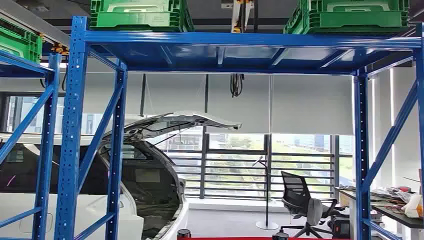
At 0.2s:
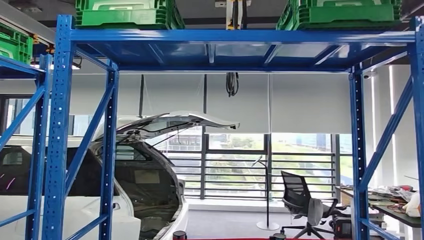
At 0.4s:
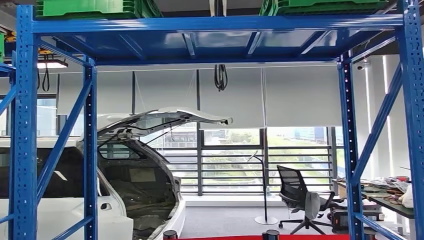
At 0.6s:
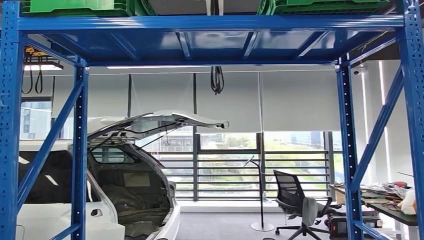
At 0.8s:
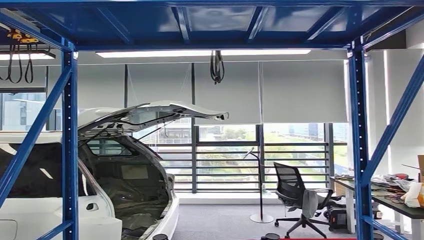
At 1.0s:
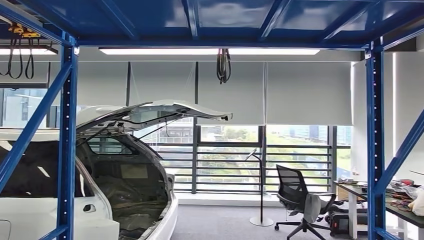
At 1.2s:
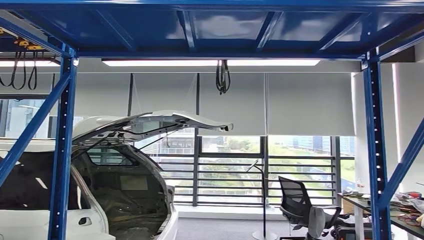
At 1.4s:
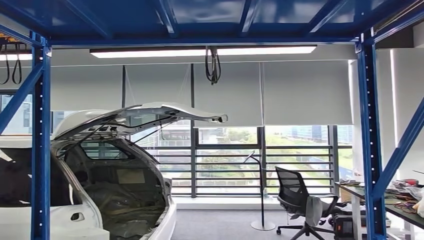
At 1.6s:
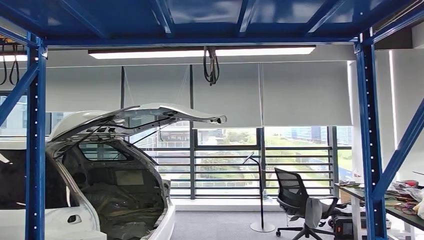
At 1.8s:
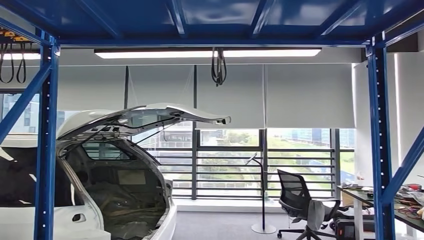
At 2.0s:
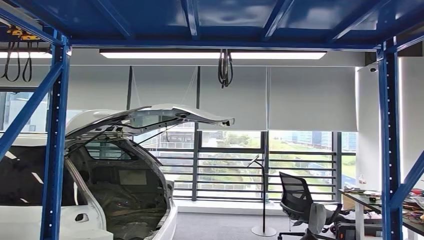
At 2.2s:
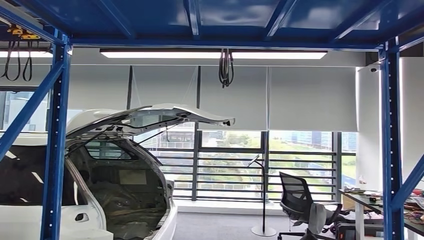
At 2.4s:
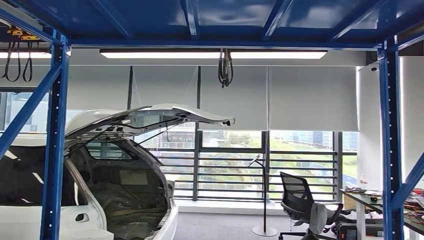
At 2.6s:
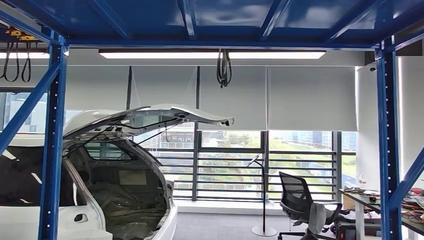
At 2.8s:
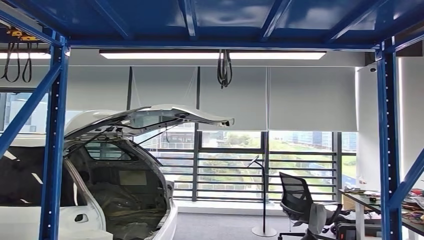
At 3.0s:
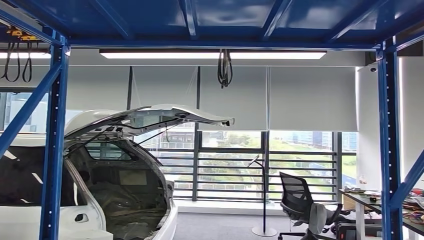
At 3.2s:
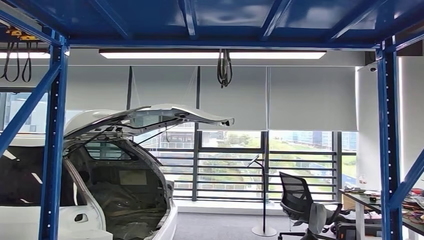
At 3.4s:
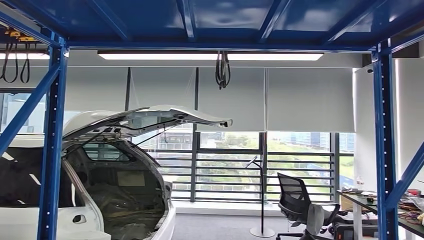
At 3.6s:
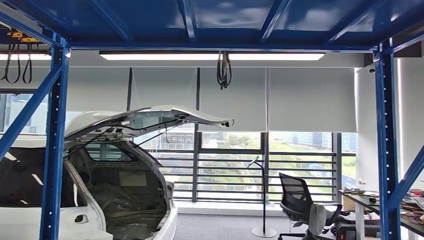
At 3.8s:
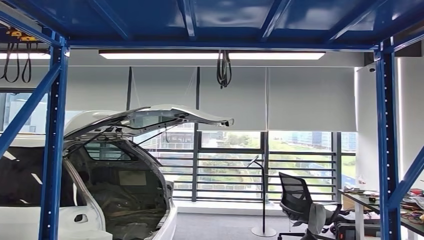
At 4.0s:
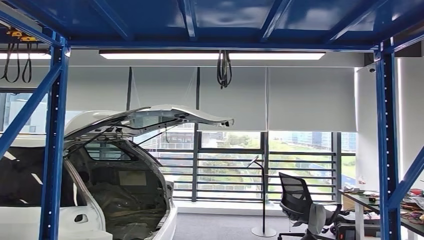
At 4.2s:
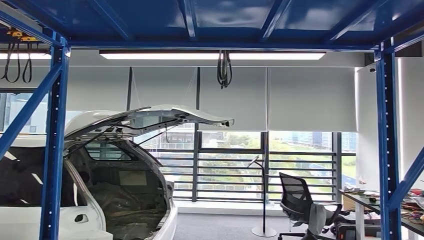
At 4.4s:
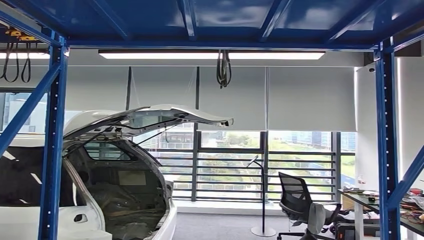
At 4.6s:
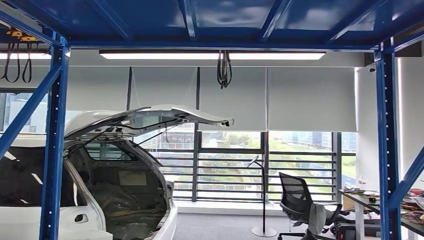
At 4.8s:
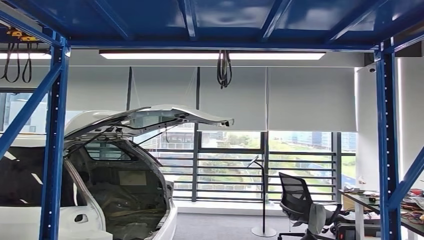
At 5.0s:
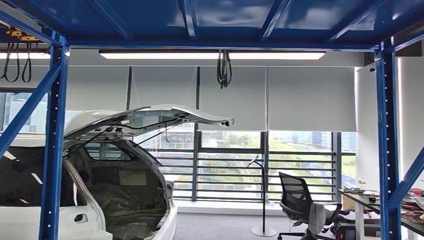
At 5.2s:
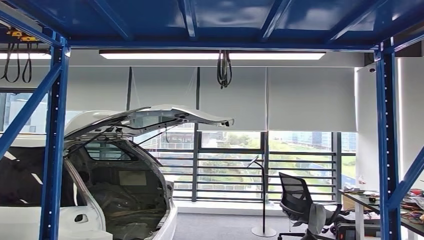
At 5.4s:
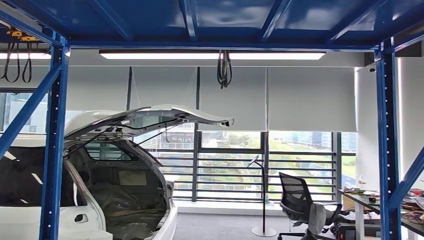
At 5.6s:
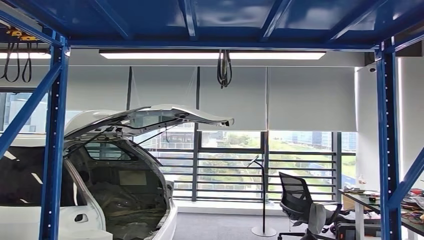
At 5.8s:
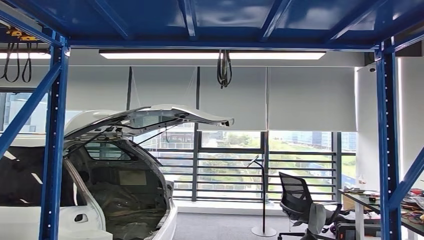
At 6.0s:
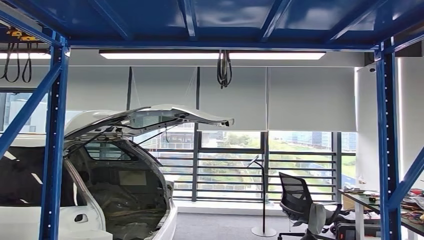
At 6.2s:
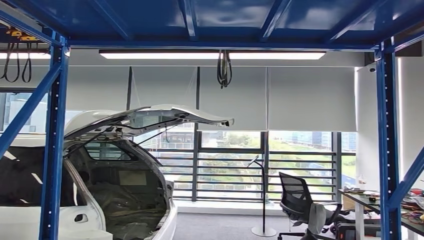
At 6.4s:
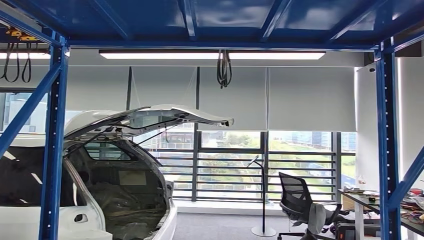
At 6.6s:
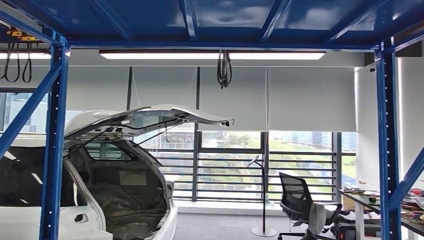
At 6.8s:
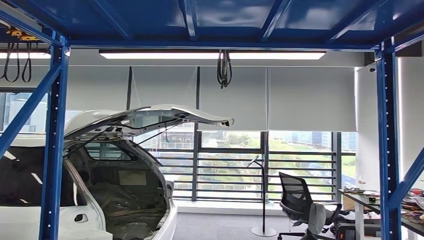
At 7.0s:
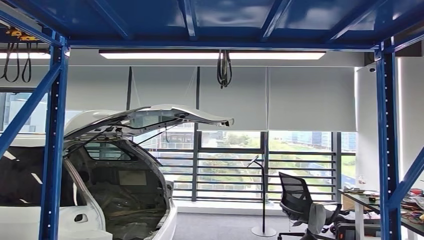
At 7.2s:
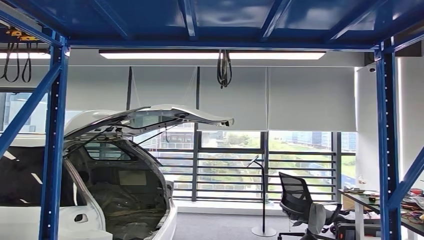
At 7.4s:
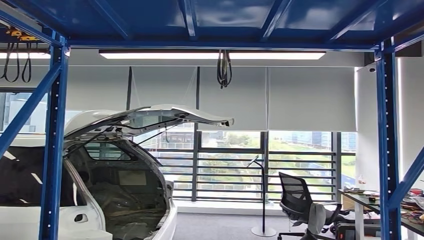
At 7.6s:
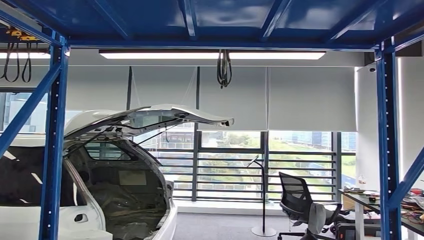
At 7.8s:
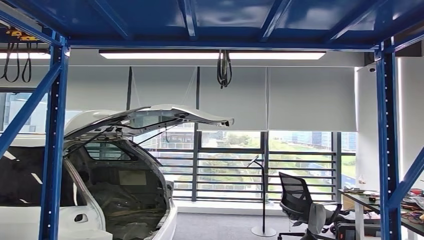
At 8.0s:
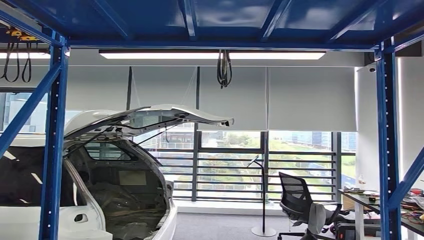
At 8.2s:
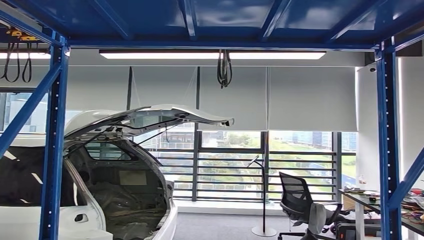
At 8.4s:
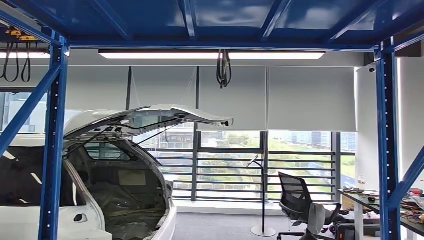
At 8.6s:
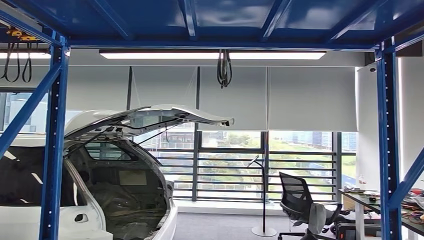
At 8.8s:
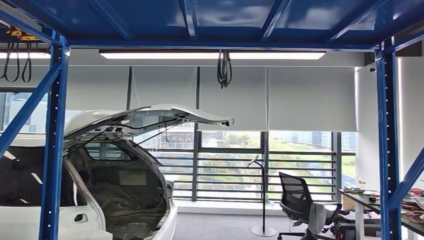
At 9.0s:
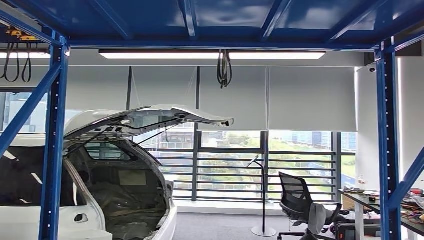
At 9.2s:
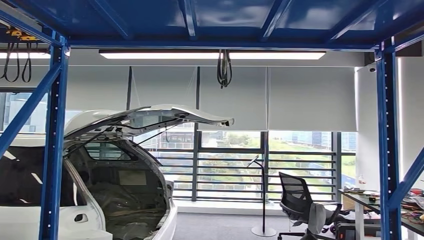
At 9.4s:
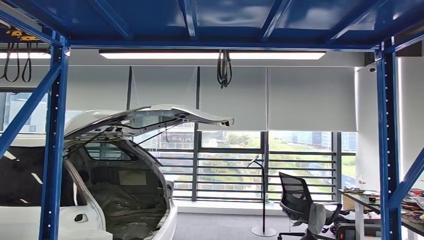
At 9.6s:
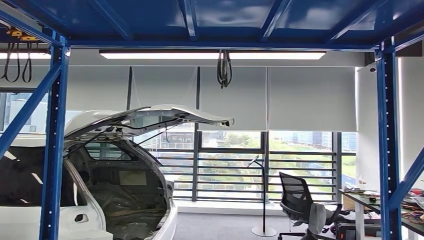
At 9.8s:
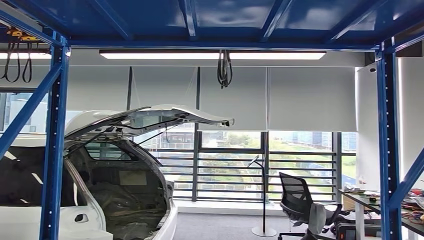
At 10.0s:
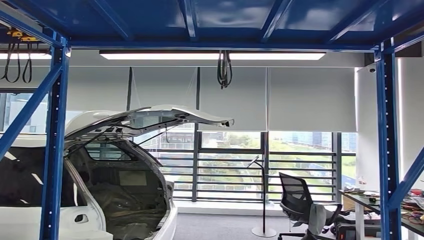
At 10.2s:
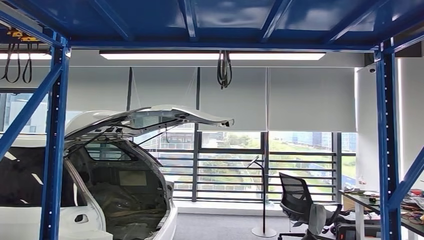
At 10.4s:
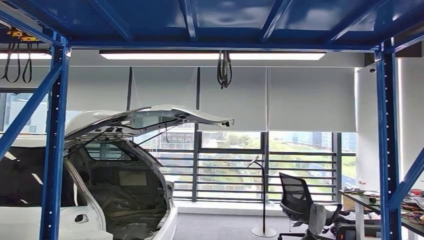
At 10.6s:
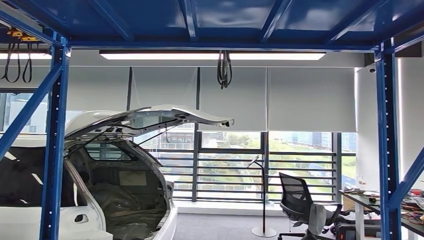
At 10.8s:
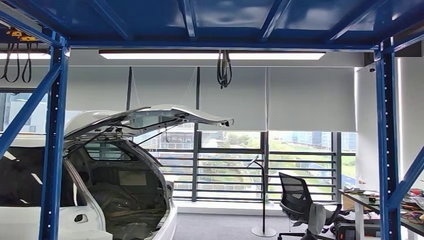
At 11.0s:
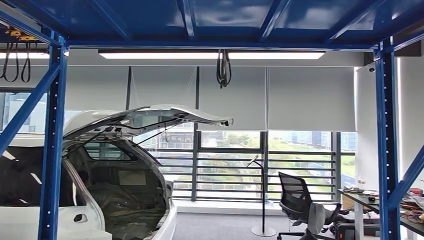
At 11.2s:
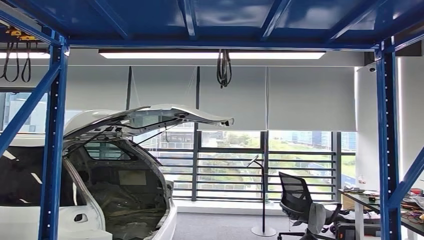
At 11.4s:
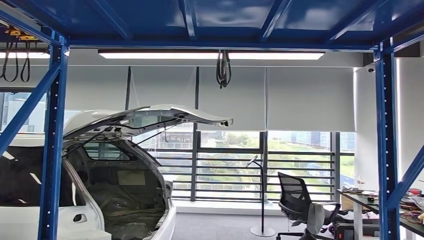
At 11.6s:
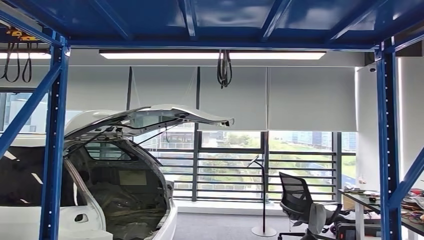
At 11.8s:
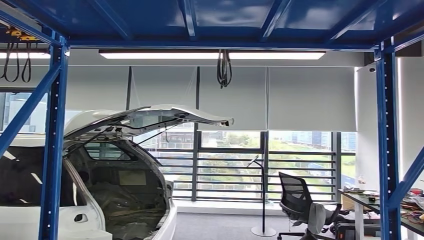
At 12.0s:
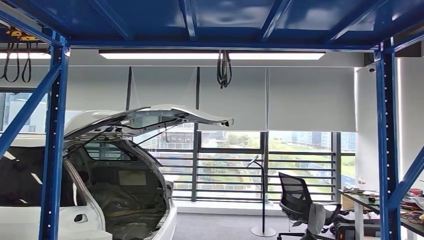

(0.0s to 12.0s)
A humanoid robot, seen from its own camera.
Step, 0.0s - 11.4s: Pick up the small component from the shelf.
3.0s - 4.4s: The right hand goes approximately 15 cm forward.
4.4s - 6.0s: The right hand moves to the left, about 5 cm.
9.0s - 10.4s: The right hand travels to the right by roughly 5 cm.
10.4s - 12.0s: The right hand shifts roughly 20 cm backward, to the left and upward.

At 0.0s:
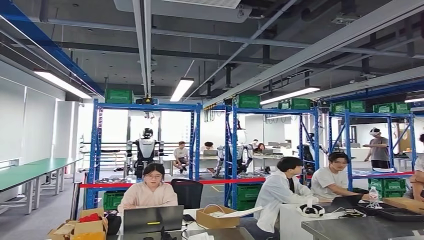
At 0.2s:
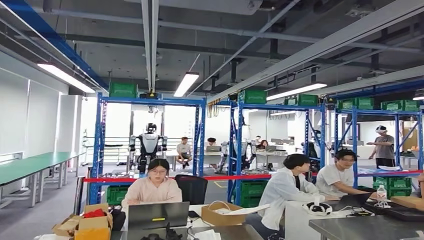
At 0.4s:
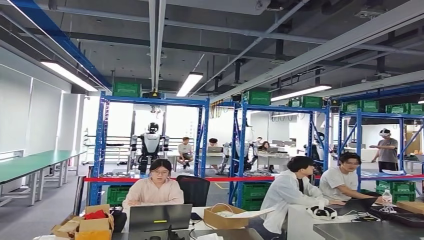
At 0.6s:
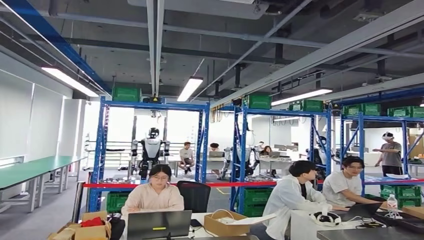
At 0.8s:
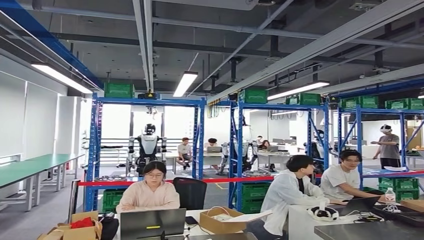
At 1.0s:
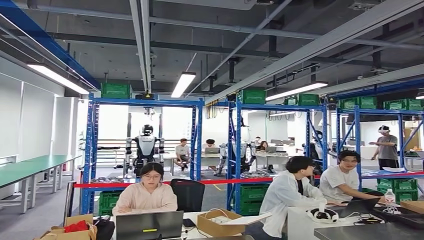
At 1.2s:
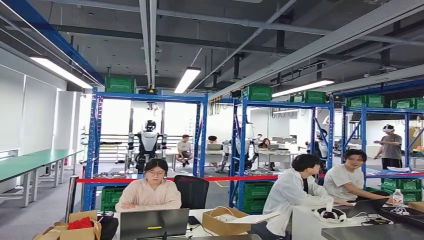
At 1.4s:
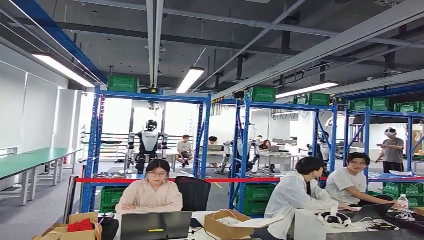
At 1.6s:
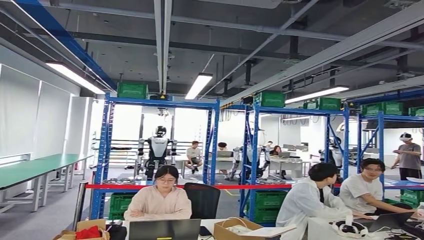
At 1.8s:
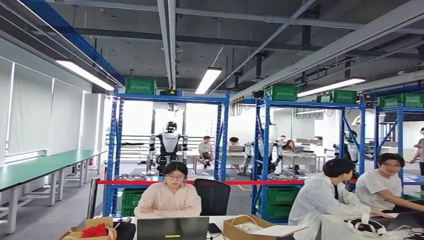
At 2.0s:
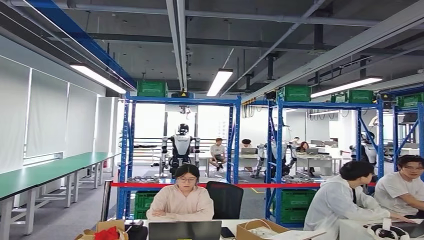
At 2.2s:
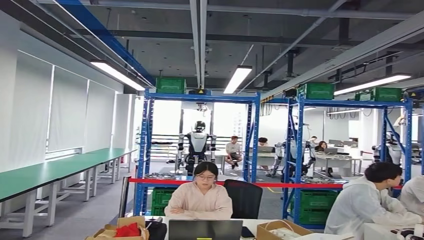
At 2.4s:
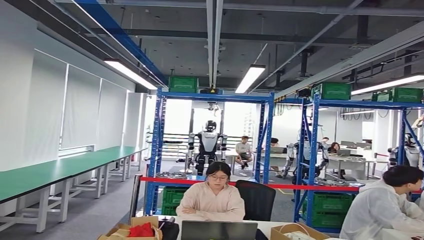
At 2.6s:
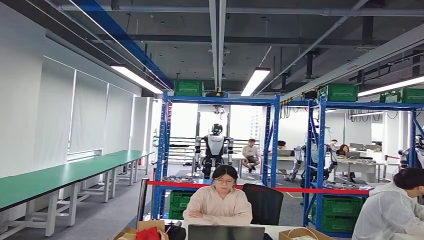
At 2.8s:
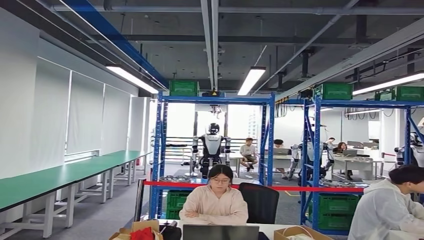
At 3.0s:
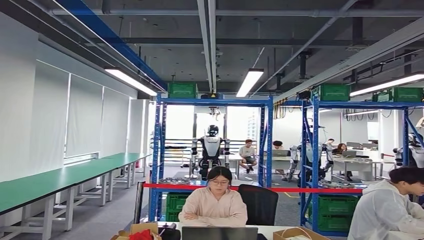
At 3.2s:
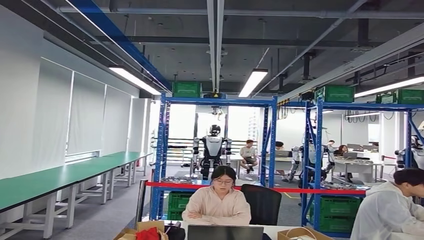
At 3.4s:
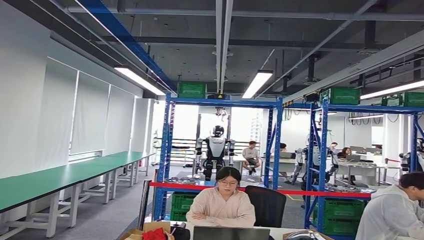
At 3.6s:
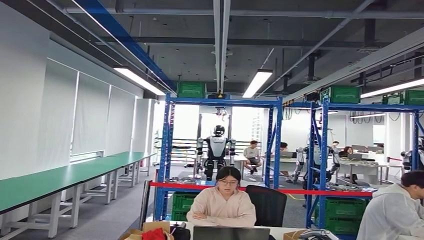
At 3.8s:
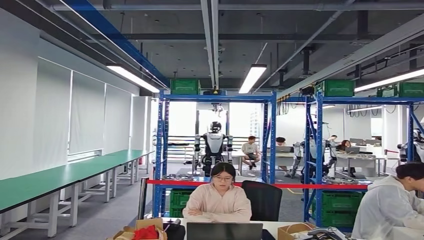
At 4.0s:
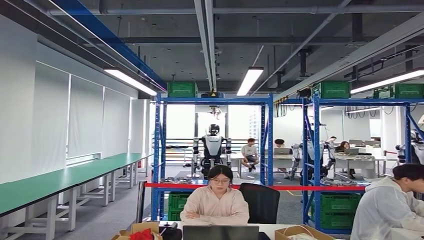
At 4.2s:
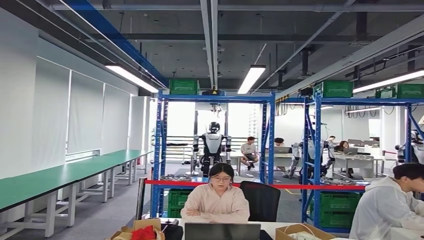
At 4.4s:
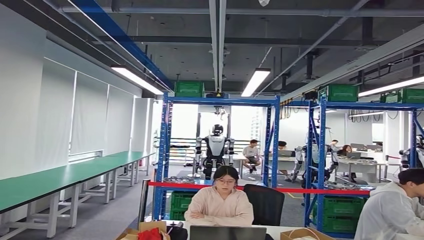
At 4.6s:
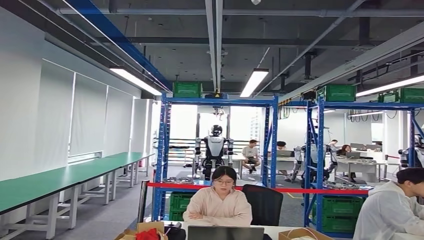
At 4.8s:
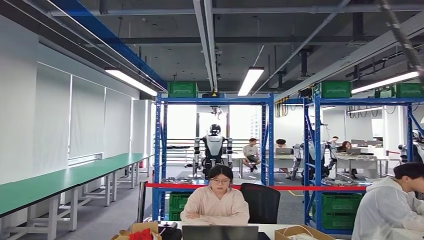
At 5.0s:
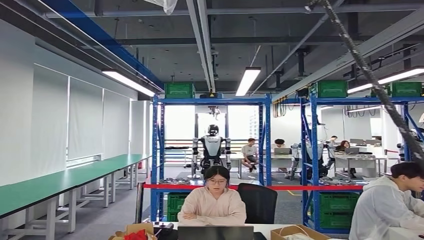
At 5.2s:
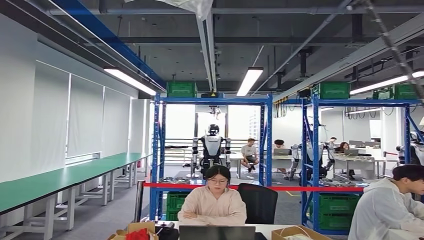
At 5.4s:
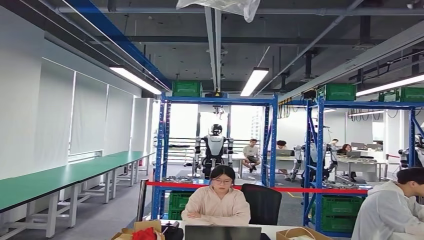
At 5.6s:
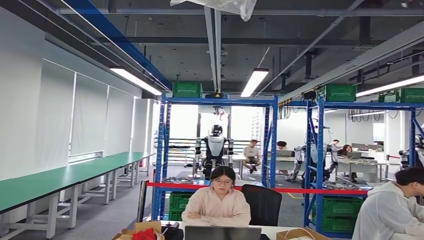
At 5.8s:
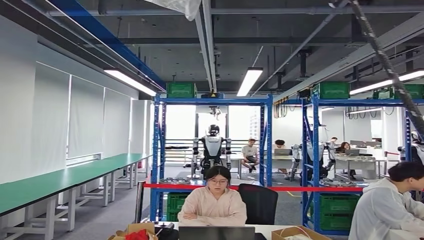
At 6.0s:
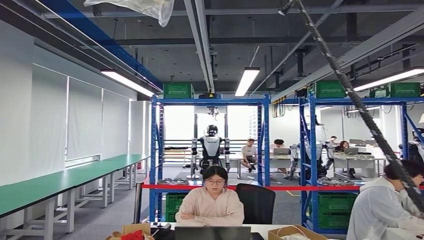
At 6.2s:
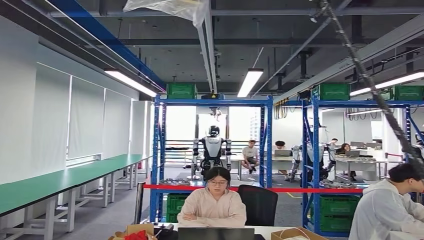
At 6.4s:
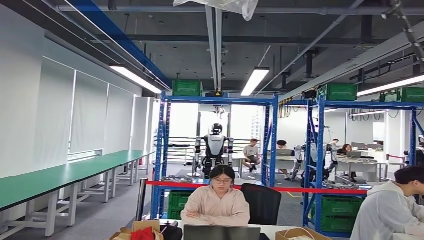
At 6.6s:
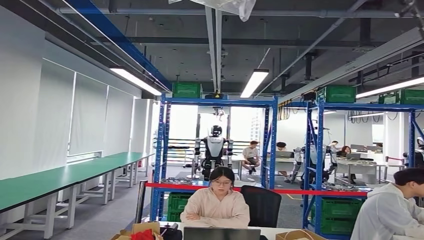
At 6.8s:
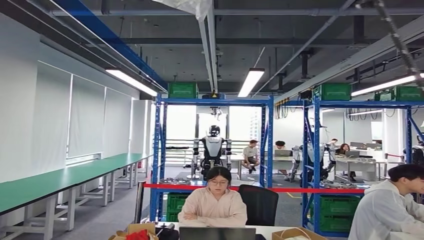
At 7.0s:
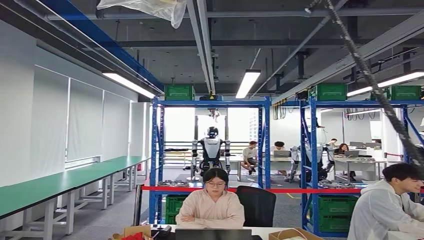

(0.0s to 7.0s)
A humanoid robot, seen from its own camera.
Step, 0.0s - 3.8s: Move the small component to the workbench.
2.8s - 4.2s: The right hand is displaced forward and to the right by approximately 25 cm.
